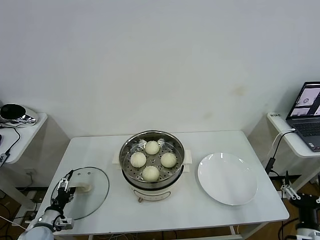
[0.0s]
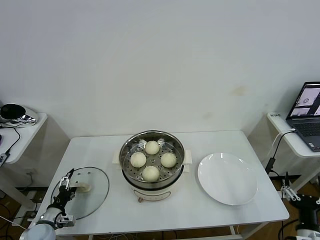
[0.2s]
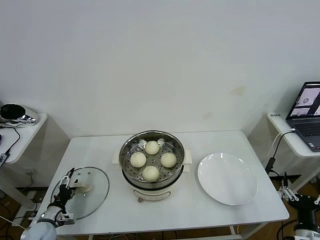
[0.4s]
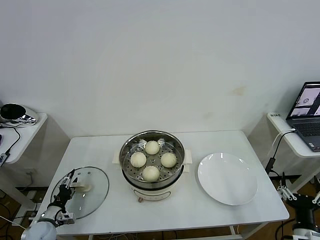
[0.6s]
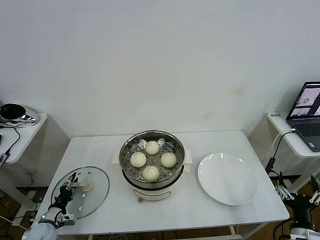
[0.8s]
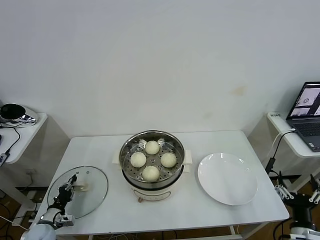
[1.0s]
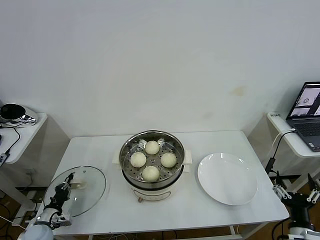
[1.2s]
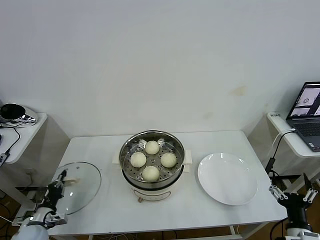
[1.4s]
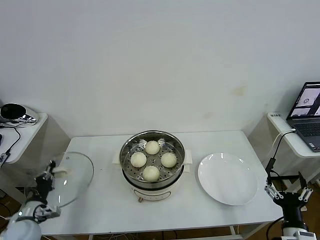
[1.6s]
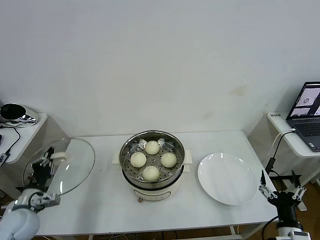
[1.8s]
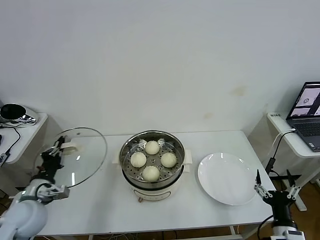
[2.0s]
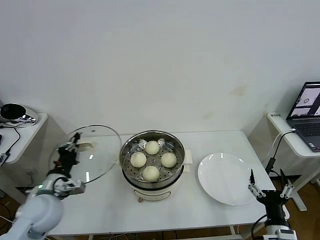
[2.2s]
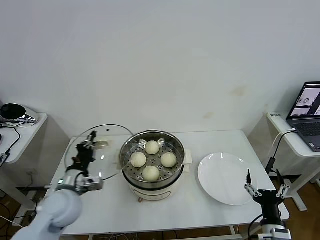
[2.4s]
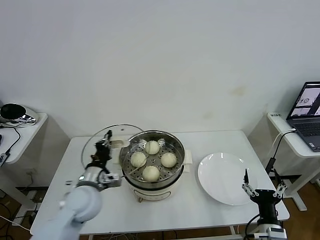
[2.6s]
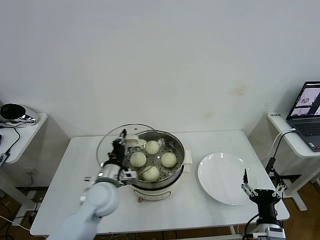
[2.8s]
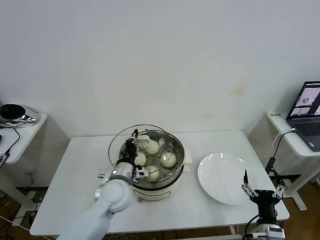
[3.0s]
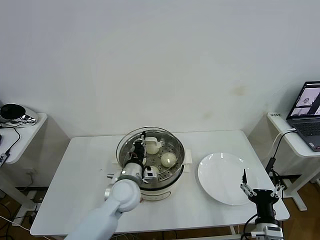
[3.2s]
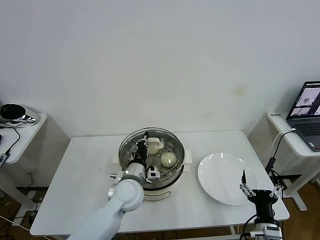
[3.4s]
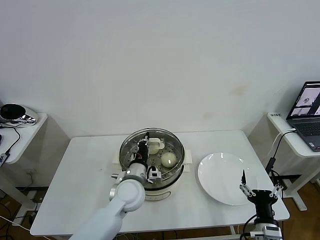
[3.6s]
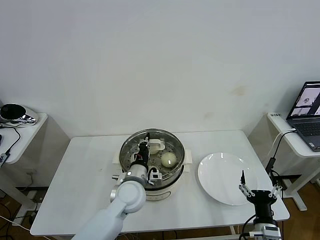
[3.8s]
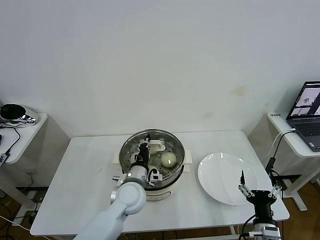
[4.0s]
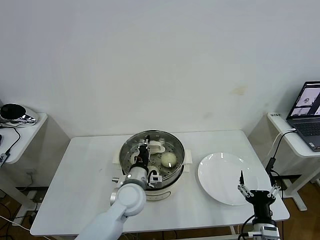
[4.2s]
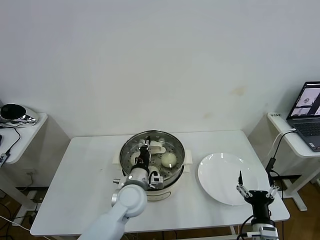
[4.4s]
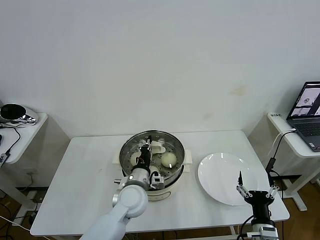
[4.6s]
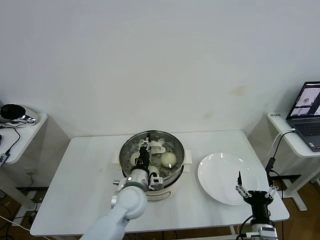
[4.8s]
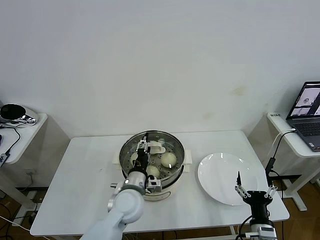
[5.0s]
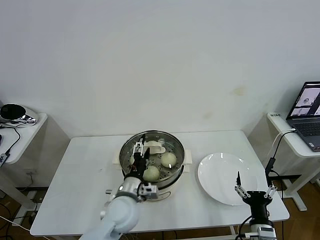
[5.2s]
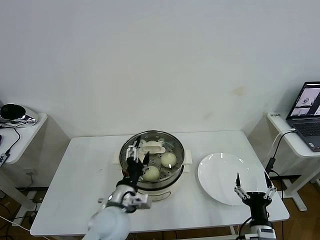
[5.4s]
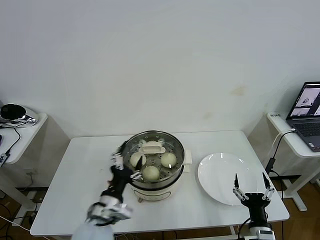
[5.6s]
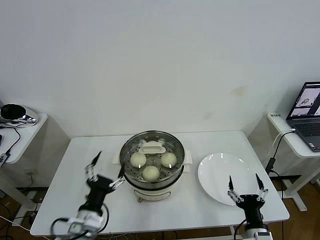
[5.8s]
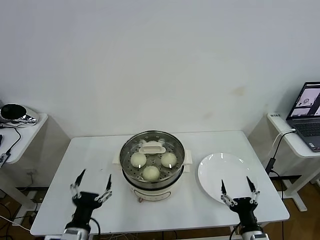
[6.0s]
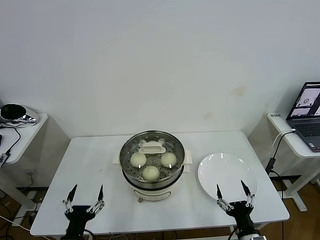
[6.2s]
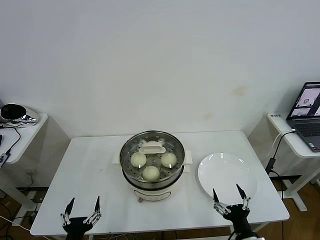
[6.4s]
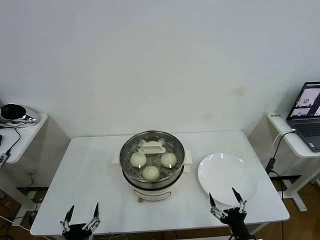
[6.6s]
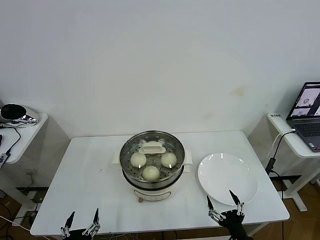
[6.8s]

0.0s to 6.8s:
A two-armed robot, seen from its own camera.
Task of the whole recording: take steamed baozi put them in steamer then cover it.
Step, 1.4s to 4.8s: Place the pot lid on the steamer with left gripper.
0.0s to 1.4s: The left gripper closes.
1.4s to 2.8s: The right gripper goes roughly 5 cm to the left. Meanwhile the left gripper moves to the right and upward, approximately 30 cm.
2.8s to 4.0s: The left gripper travels to the right by about 10 cm.
4.0s to 5.4s: The left gripper goes roughly 10 cm backward, and opens up.
5.4s to 6.8s: The left gripper is displaced backward, to the left and downward by some 25 cm.
